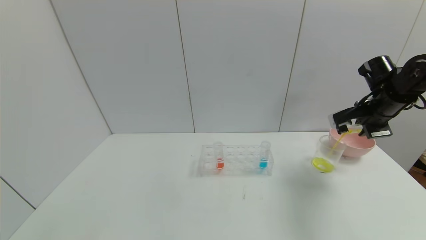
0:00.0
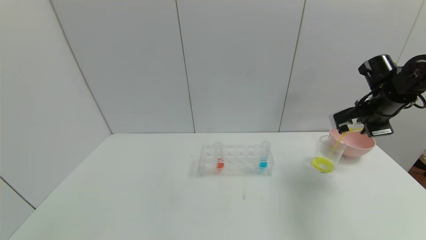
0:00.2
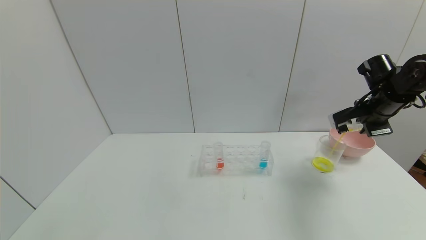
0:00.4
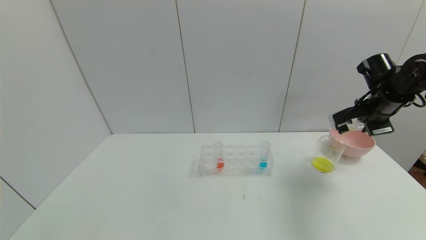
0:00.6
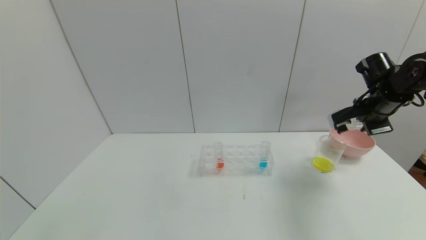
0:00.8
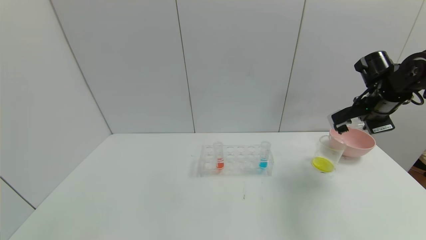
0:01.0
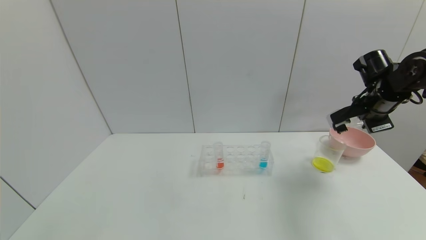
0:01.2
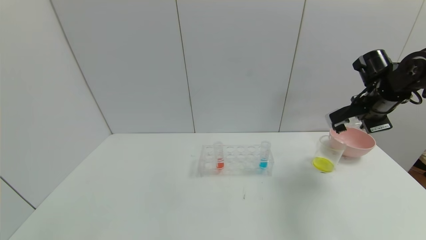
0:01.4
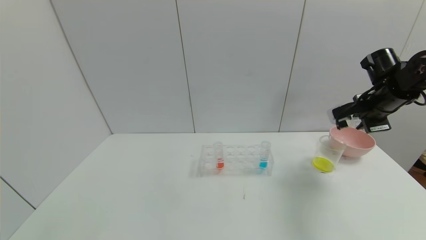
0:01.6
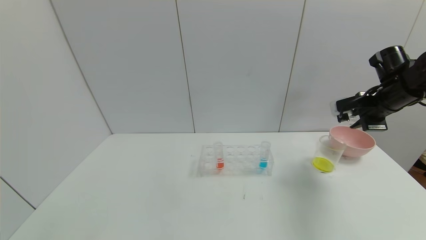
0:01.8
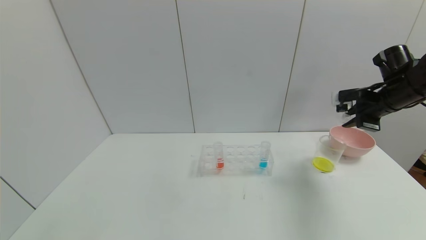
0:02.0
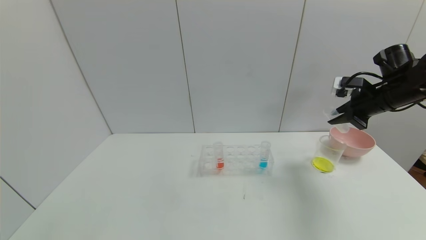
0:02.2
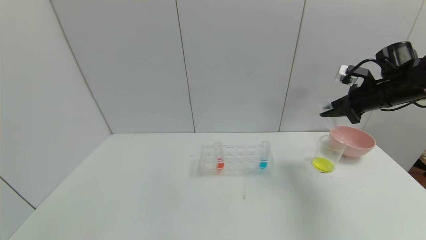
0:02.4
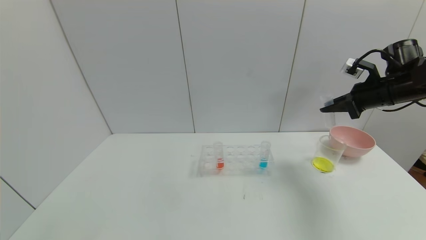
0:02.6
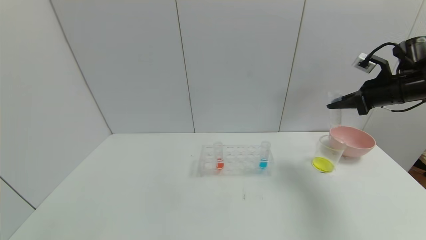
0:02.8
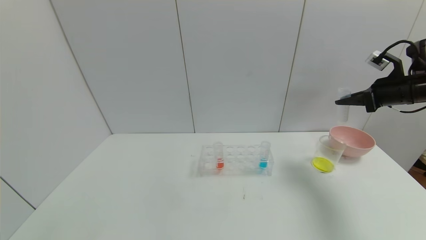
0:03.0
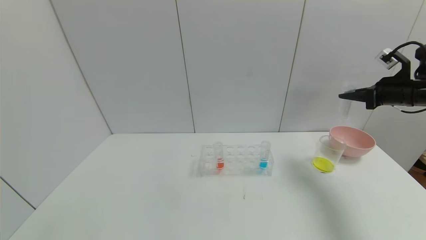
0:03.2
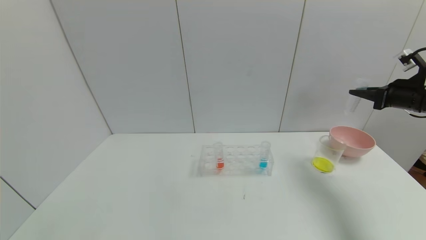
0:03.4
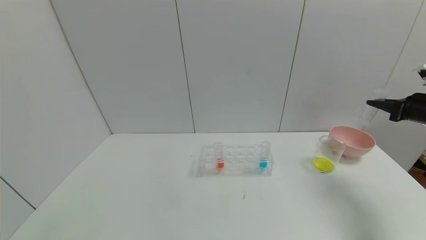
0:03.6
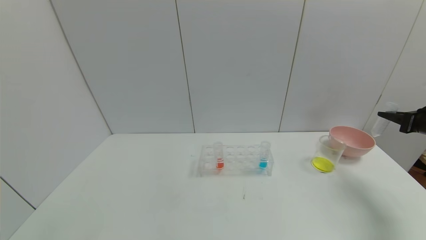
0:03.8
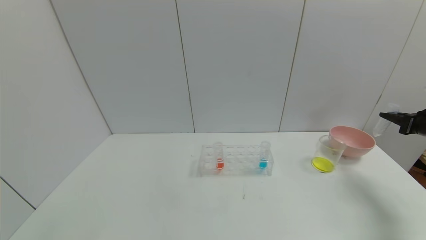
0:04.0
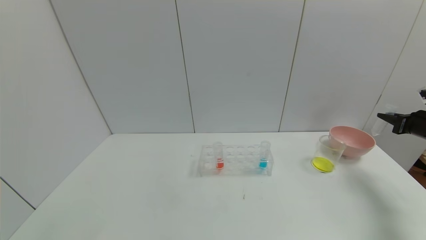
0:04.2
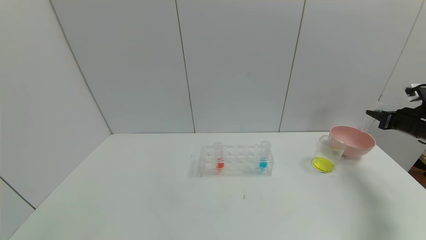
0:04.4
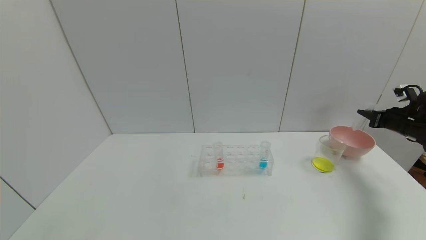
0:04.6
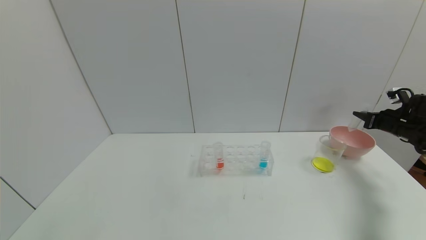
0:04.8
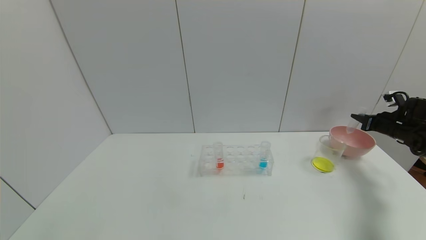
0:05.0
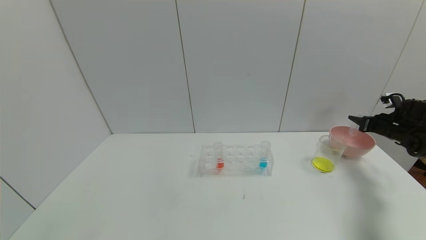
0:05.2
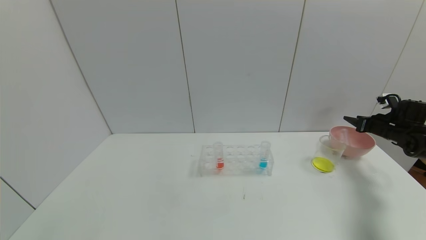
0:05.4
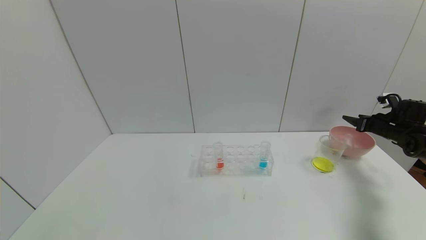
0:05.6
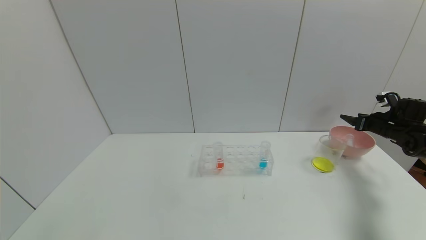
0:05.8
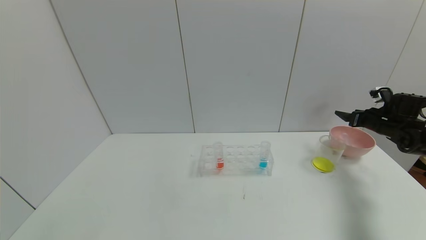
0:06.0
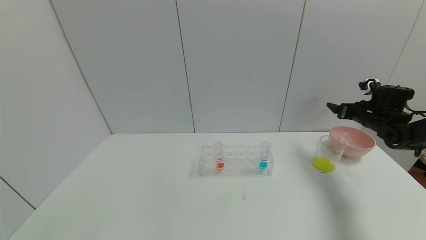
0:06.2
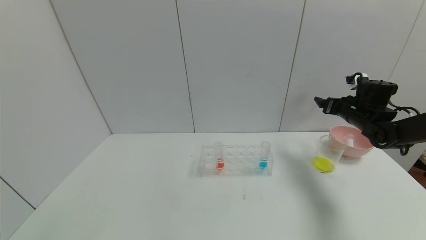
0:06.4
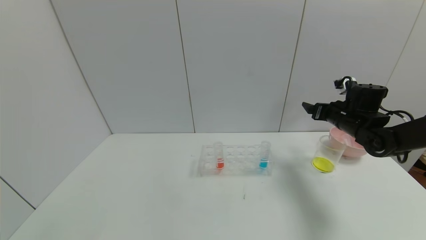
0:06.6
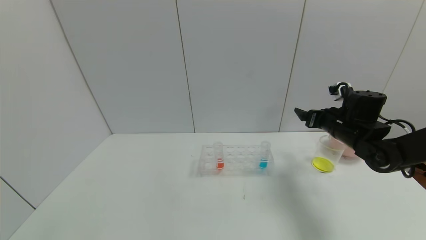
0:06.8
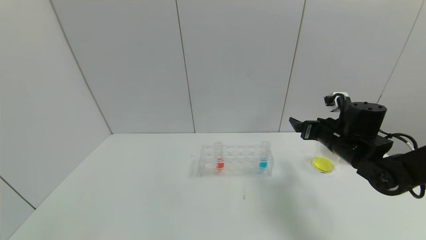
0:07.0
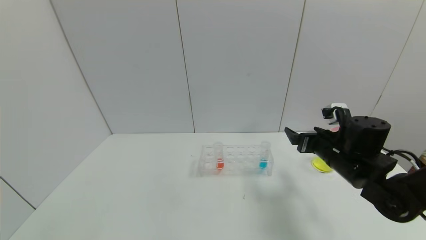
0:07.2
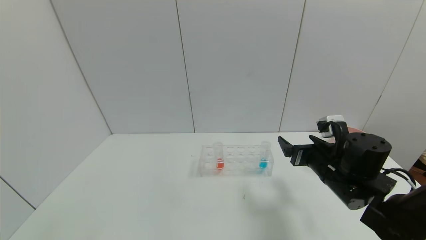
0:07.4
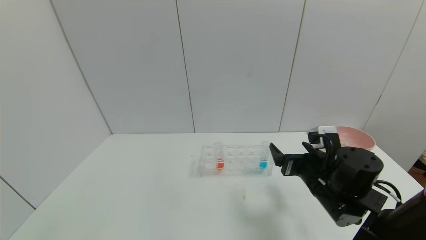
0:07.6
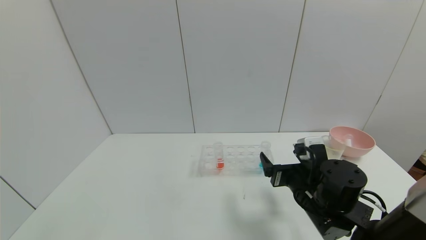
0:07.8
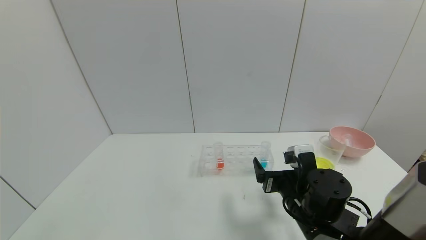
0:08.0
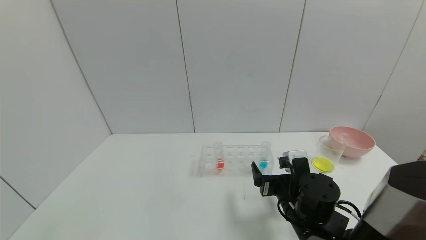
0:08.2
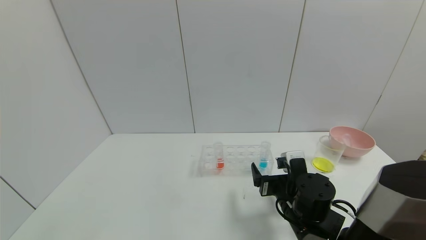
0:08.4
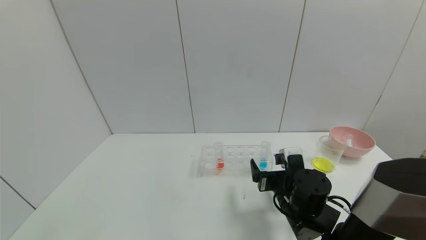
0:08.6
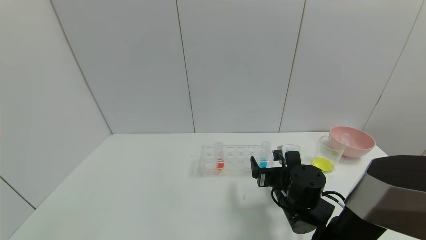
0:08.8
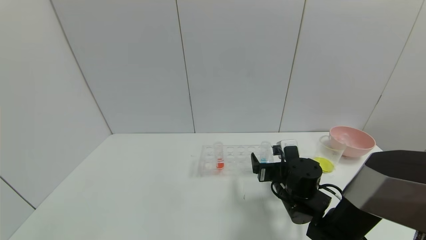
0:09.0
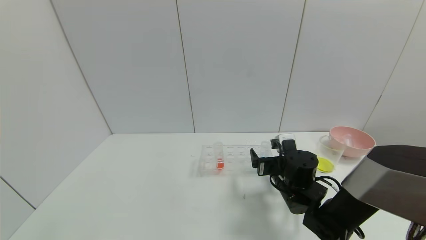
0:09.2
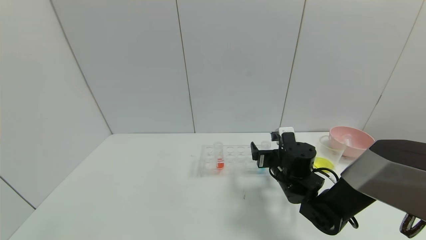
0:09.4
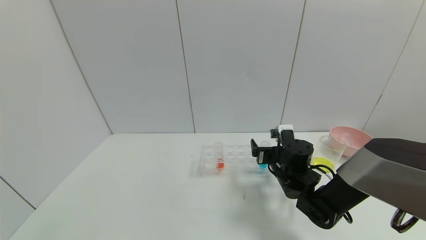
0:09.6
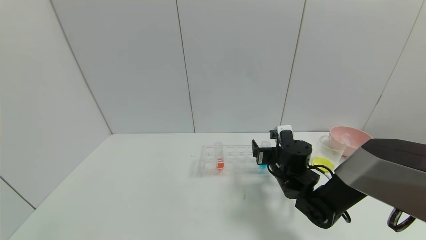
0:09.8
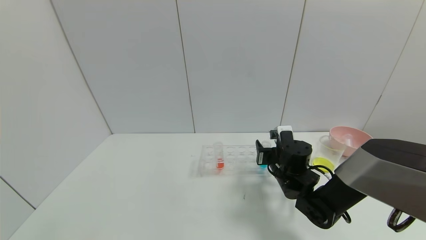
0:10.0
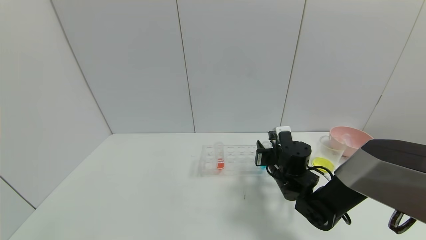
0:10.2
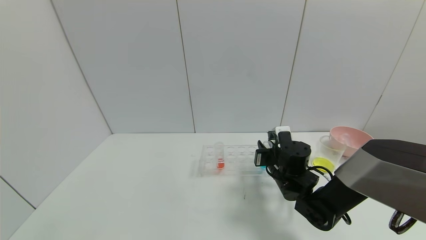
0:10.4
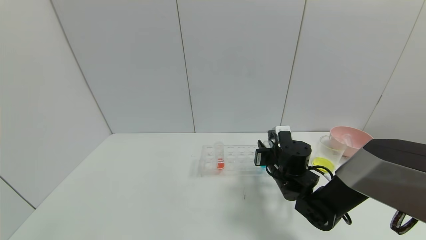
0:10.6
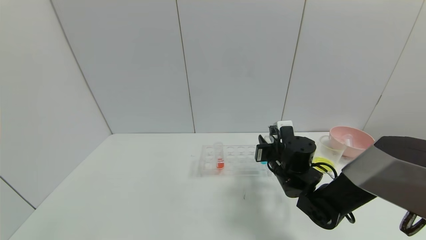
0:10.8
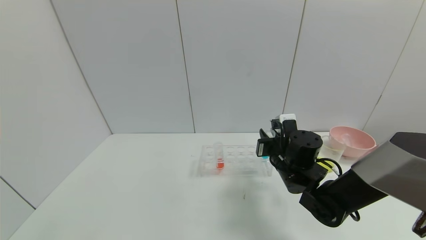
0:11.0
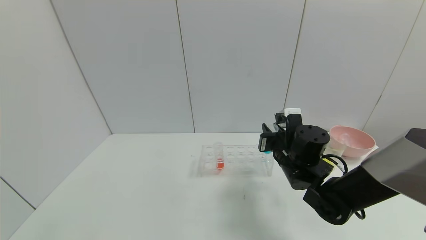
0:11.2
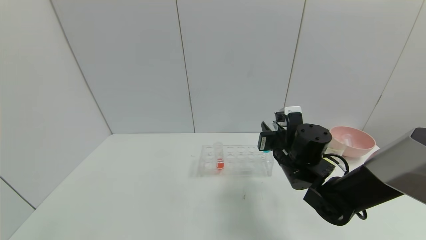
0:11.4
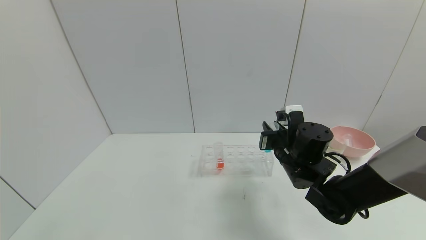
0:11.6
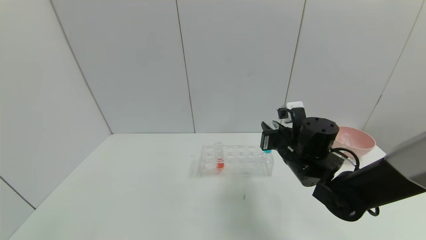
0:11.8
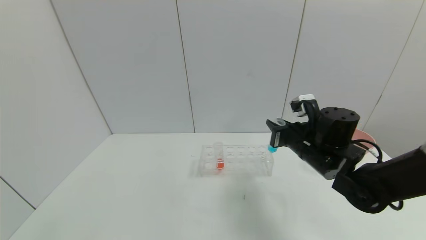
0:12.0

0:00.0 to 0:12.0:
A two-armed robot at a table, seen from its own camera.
Task of the whole recording: pick up the test tube with yellow pigment and the test tube with blue pigment by grippers and pour them into the beaker.
Step, 0:00.0 to 0:03.2: Pour the yellow reagent into the graduated cylinder with right gripper.
Step, 0:03.4 to 0:06.2: Place the test tube into the bowl with right gripper.
0:00.0 to 0:01.6: The grippers stay close to where they were, moving slightly.
0:01.6 to 0:03.0: The right gripper moves to the right, approximately 5 cm.
0:03.0 to 0:04.4: The right gripper shifts approximately 15 cm downward and to the right.
0:04.4 to 0:06.0: The right gripper heads forward, covering approximately 5 cm, and opens its fingers.
0:06.0 to 0:07.6: The right gripper shifts some 35 cm to the left and backward.
0:07.6 to 0:09.0: The right gripper shifts roughly 5 cm downward.
0:09.0 to 0:10.4: The right gripper closes.
0:10.4 to 0:12.0: The right gripper goes some 10 cm upward.

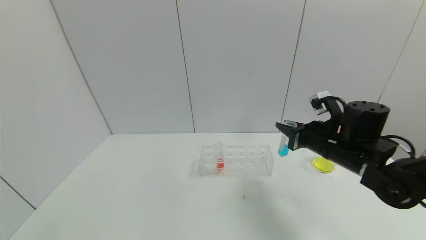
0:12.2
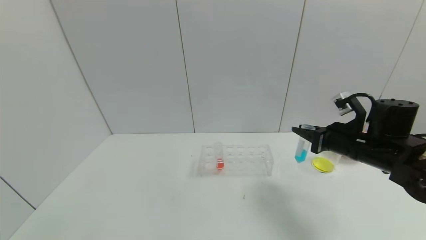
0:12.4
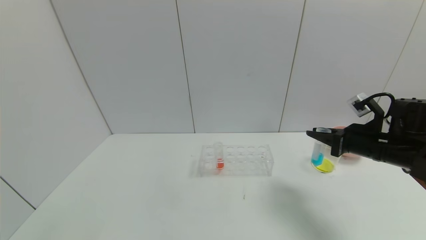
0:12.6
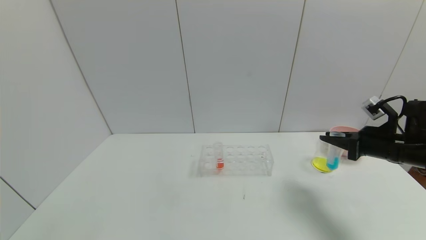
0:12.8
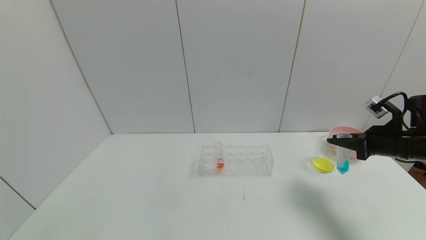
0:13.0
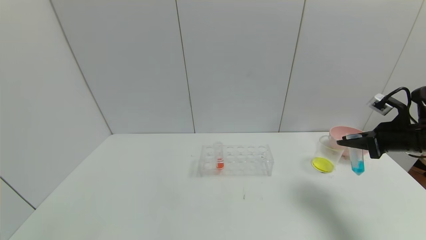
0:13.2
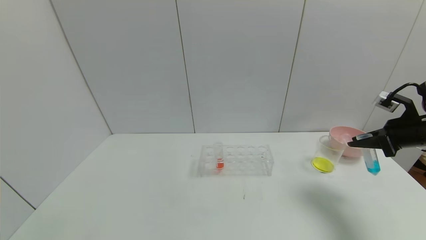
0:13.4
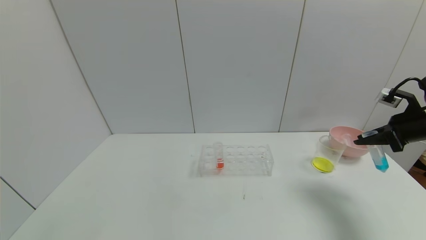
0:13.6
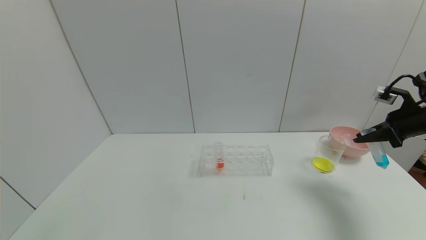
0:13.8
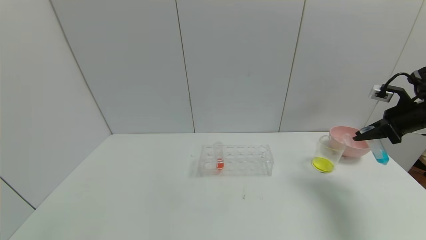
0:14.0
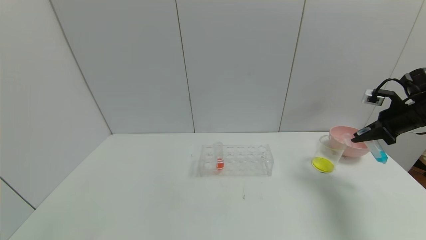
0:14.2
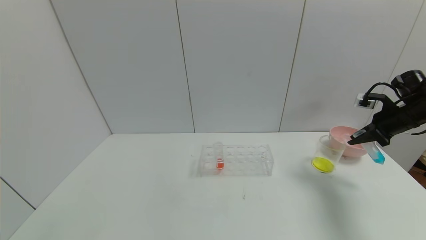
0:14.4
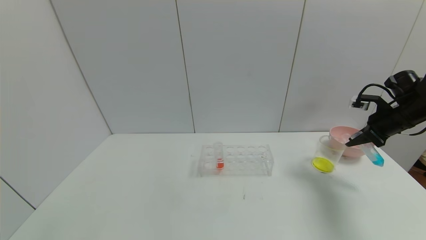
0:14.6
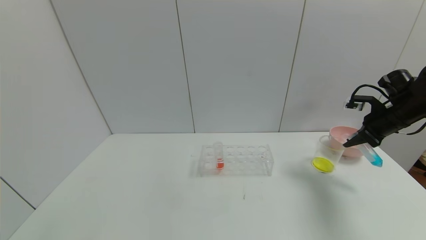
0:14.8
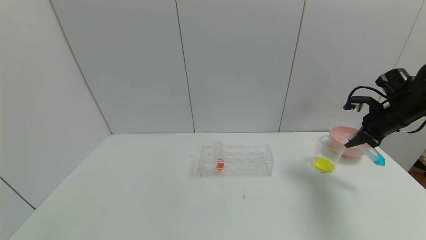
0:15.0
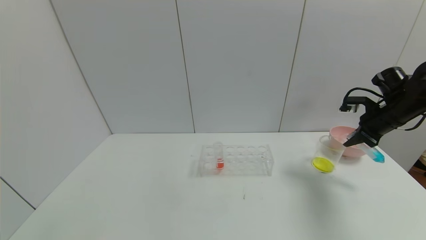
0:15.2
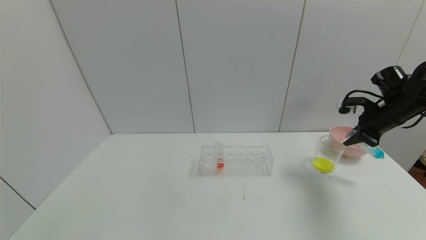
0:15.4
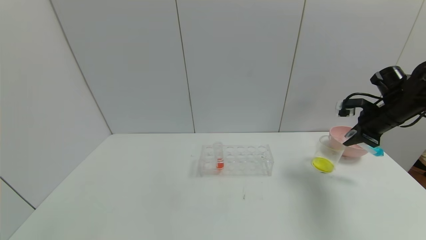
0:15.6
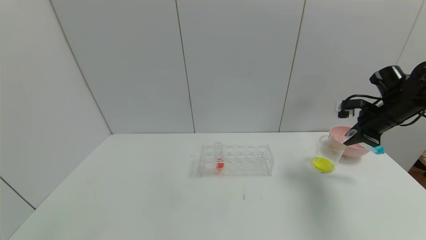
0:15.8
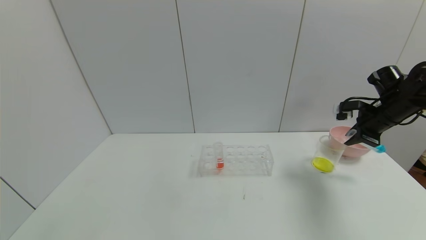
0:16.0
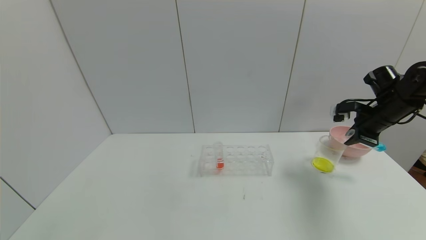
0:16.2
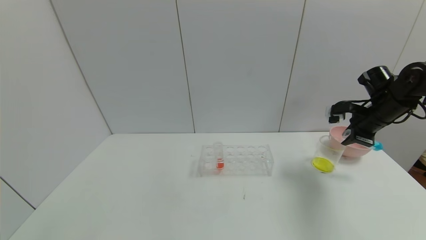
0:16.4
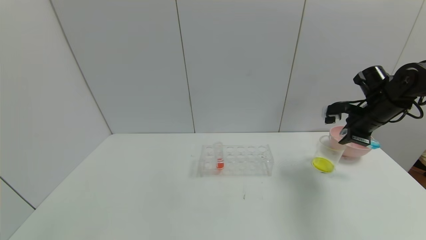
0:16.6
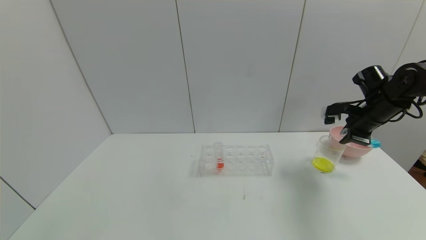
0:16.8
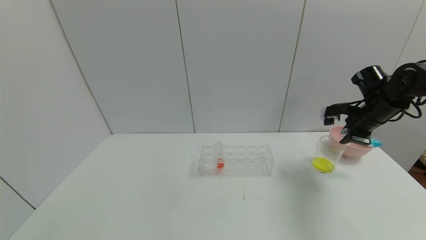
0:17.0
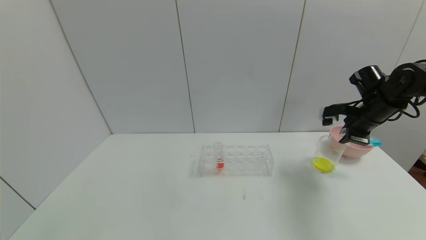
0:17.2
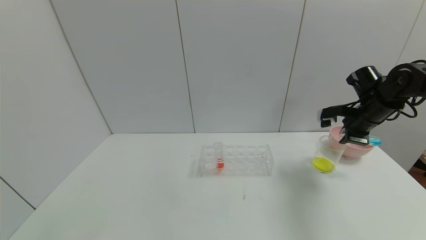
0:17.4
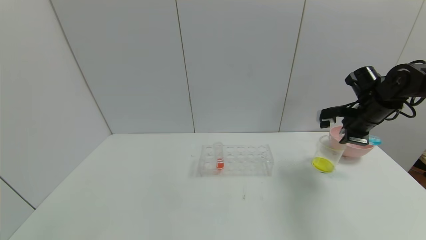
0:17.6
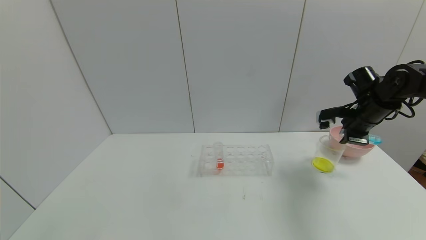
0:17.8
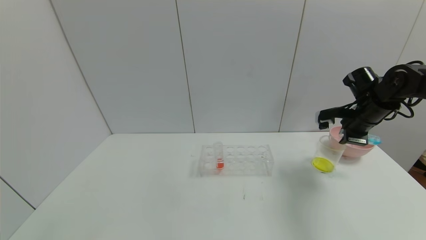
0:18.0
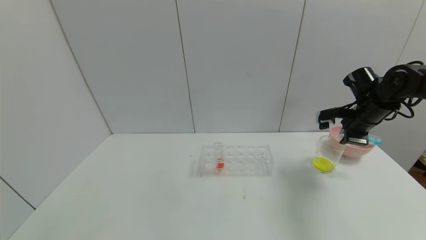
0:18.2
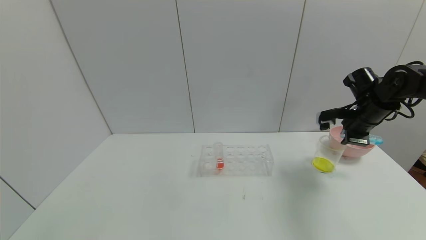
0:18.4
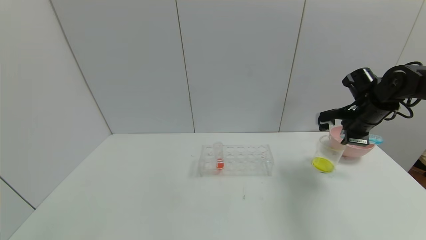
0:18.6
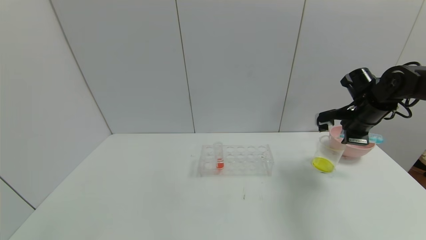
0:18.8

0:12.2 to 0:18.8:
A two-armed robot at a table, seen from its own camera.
Task of the whole recording: pick up the test tube with yellow pigment and the test tube with blue pigment by grippers and pour them into the beaker.
0:12.2 to 0:13.8: The right gripper goes about 20 cm to the right.
0:13.8 to 0:15.4: The right gripper heads forward, covering approximately 5 cm.
0:17.2 to 0:18.8: The grippers stay close to where they were, moving slightly.
